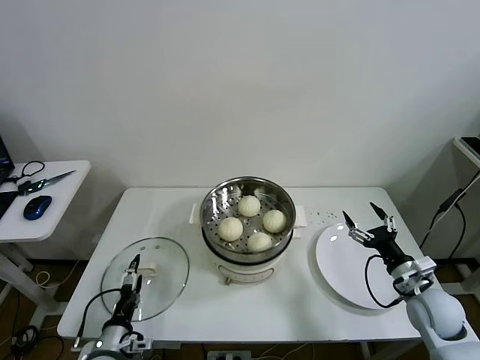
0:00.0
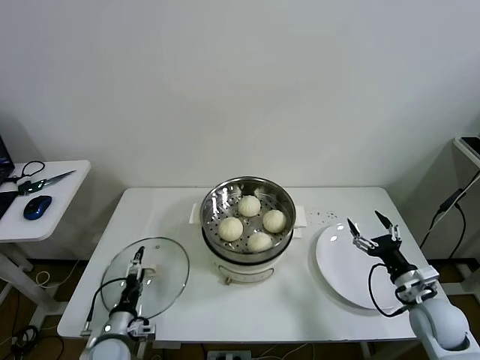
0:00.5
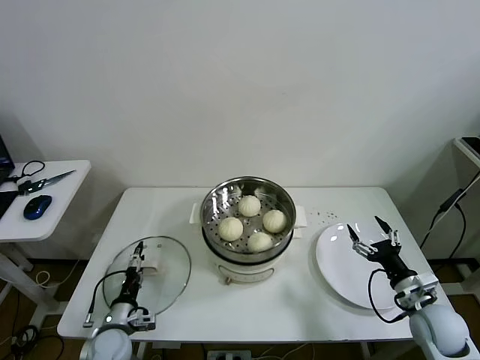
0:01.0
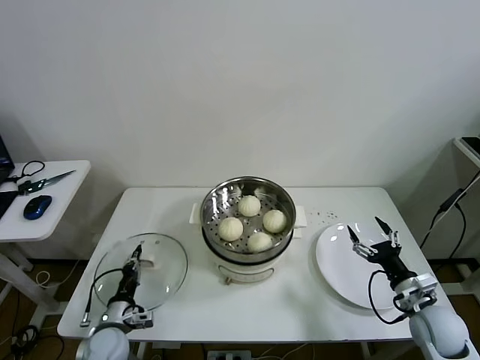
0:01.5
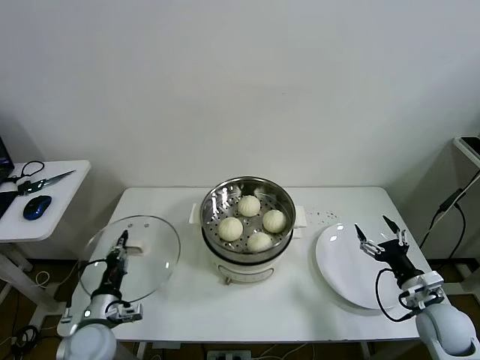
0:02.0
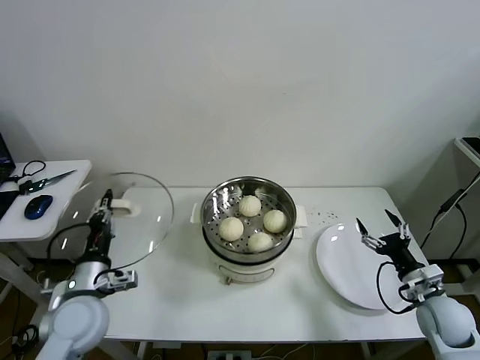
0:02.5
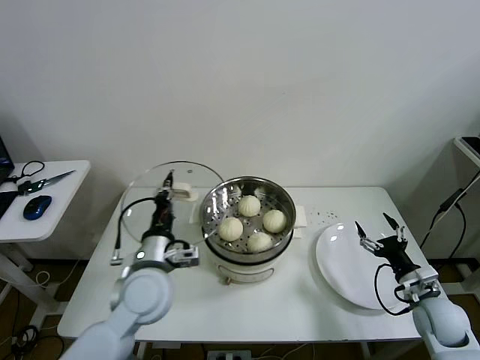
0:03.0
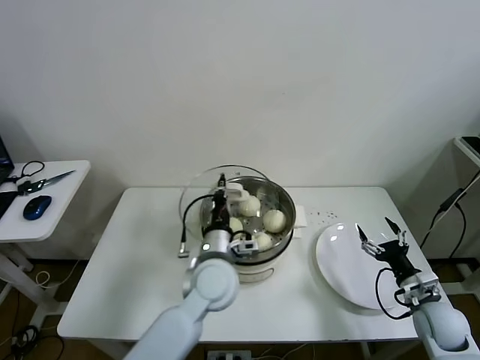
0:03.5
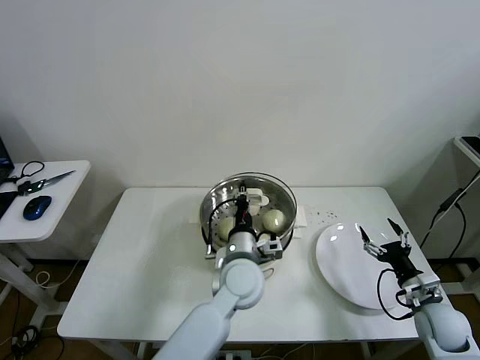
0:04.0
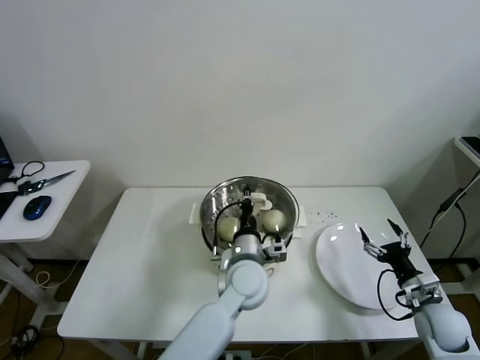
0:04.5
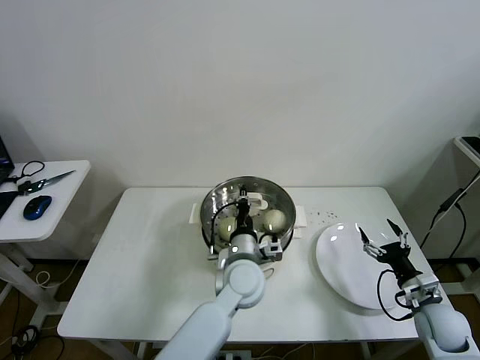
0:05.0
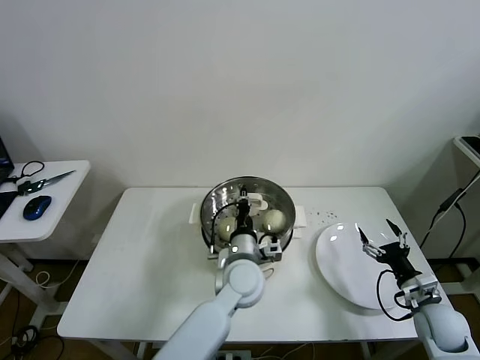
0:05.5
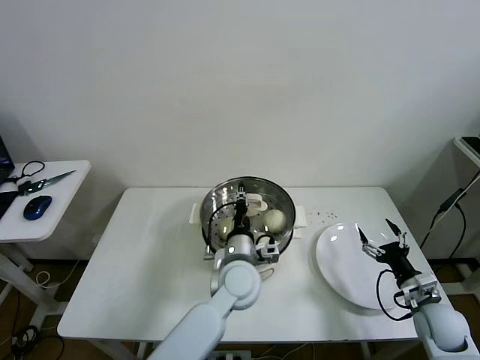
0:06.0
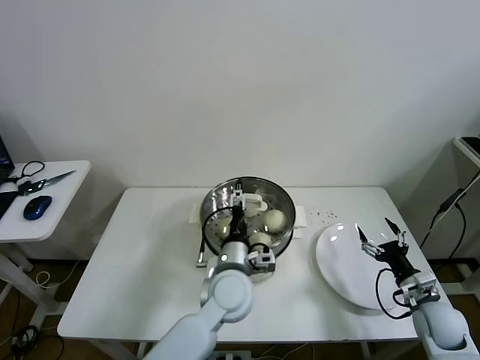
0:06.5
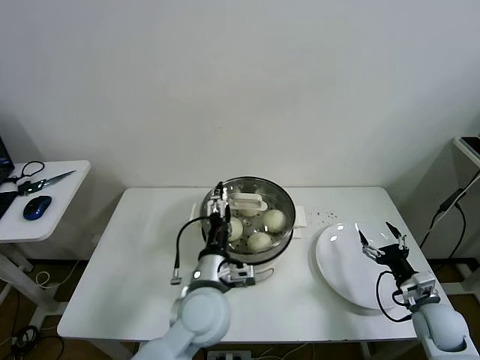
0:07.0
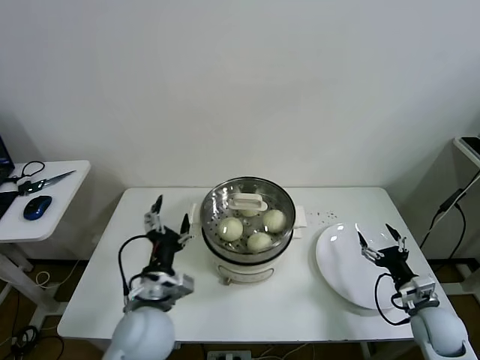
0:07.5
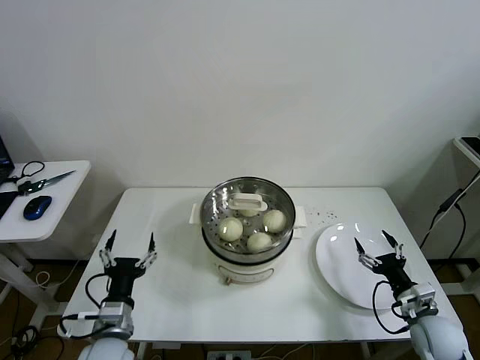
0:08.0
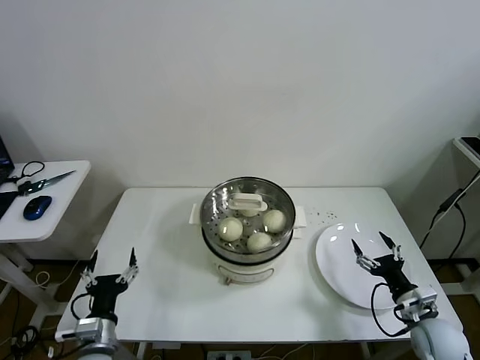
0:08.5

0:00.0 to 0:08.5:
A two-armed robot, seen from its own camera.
Task of the whole recording: take steamed baozi put them in steamer then cover it.
Step, 0:02.0 to 0:06.0: Place the pot lid on the steamer with left gripper.
0:00.0 to 0:02.0: The left gripper moves forward, roughly 5 cm, and closes.
0:02.0 to 0:04.0: The left gripper shifts approximately 30 cm to the right.
0:04.0 to 0:06.5: The left gripper opens up.
0:06.5 to 0:08.5: The left gripper moves to the left and backward, roughly 30 cm.

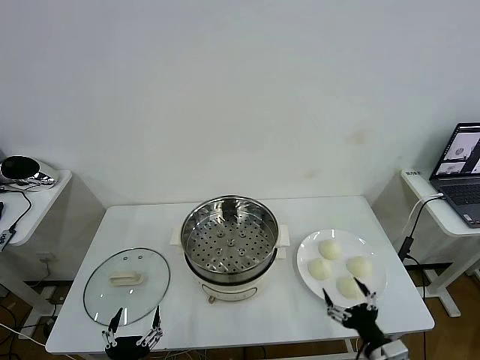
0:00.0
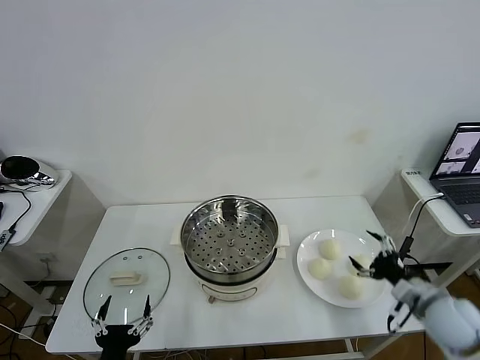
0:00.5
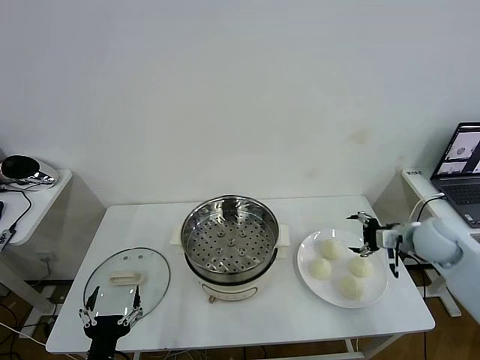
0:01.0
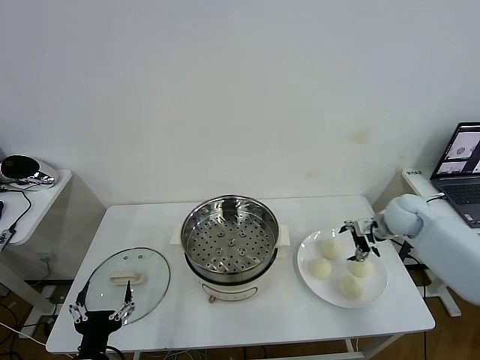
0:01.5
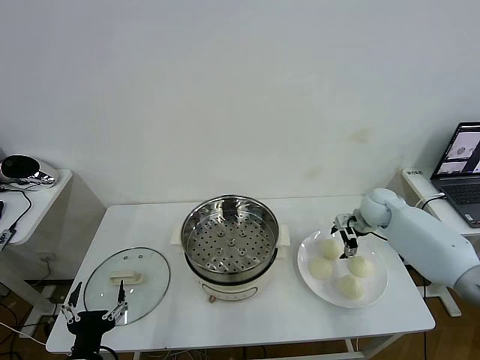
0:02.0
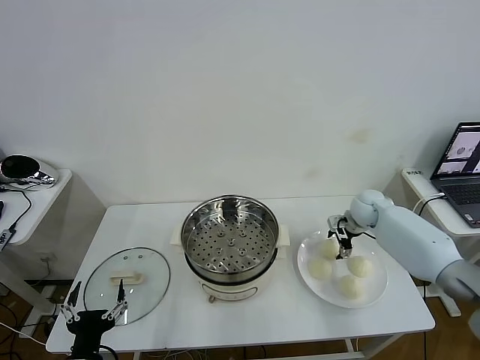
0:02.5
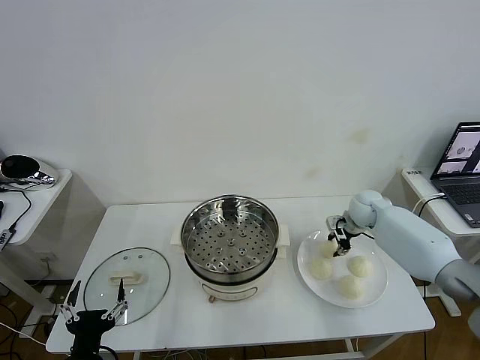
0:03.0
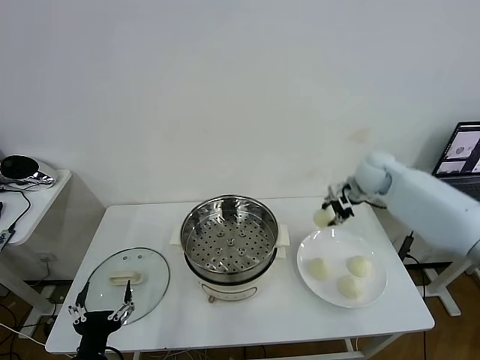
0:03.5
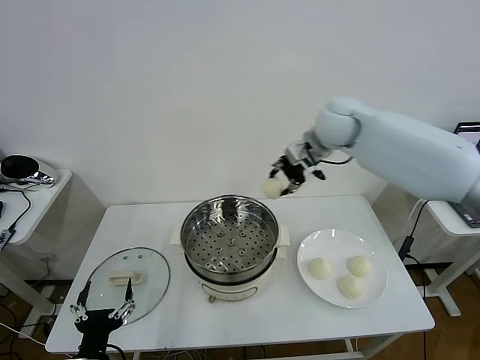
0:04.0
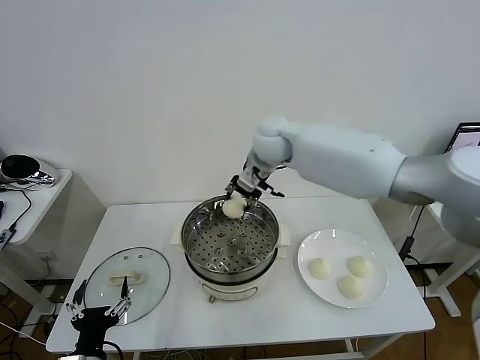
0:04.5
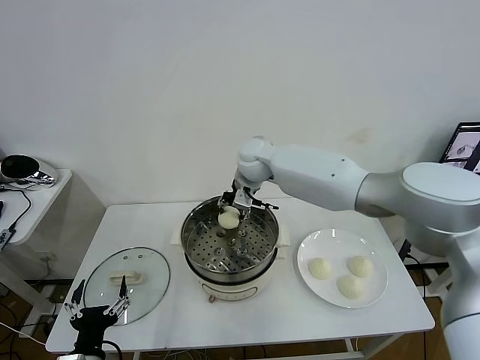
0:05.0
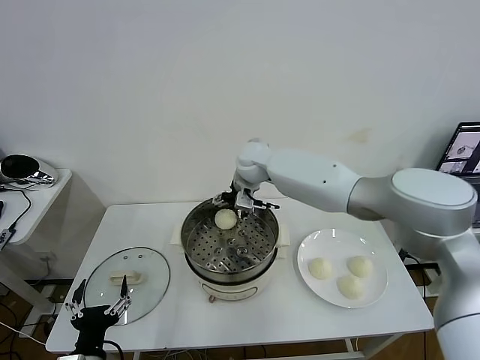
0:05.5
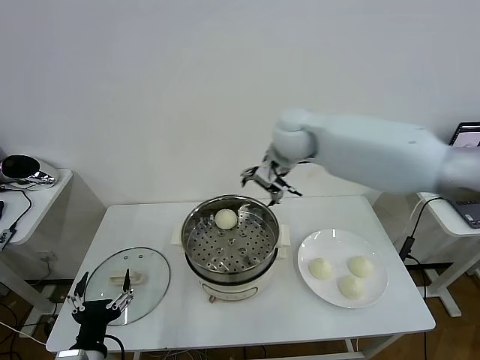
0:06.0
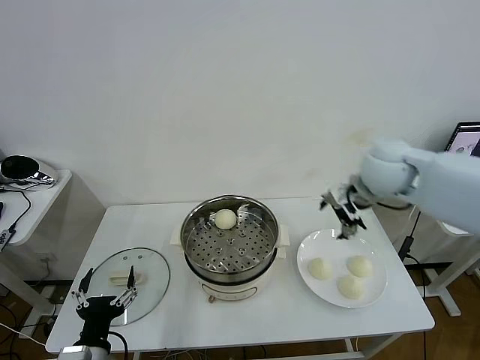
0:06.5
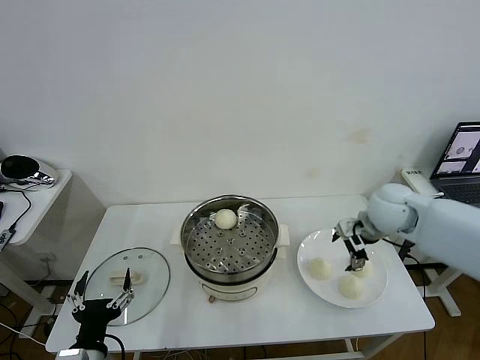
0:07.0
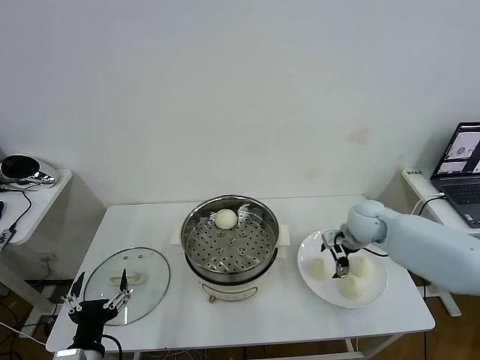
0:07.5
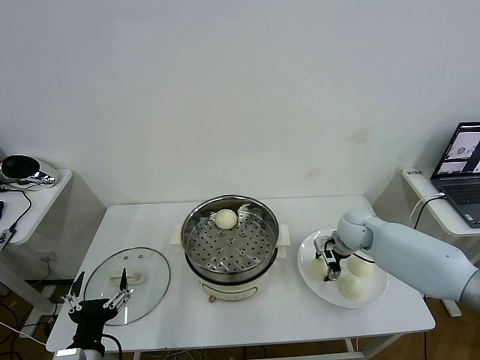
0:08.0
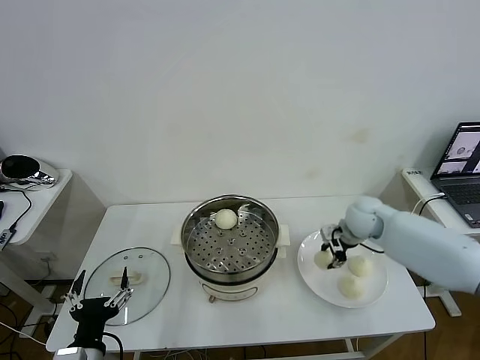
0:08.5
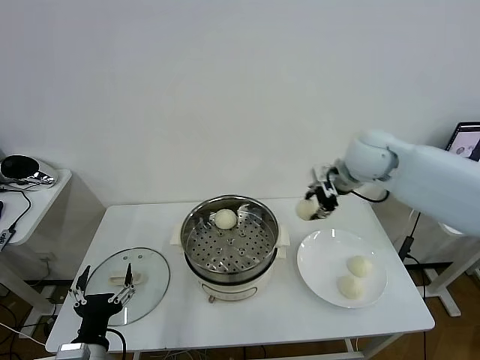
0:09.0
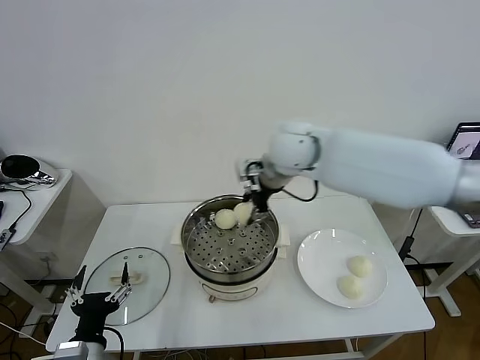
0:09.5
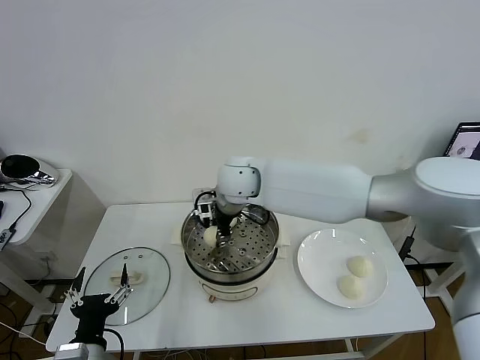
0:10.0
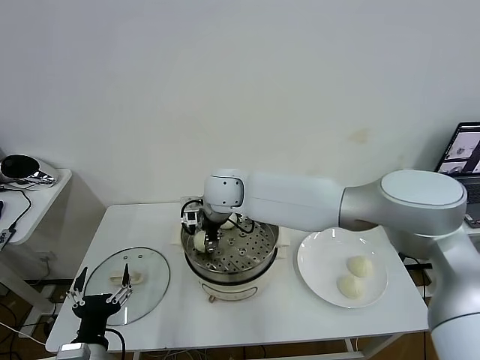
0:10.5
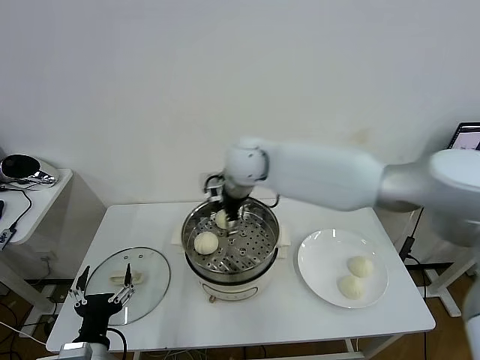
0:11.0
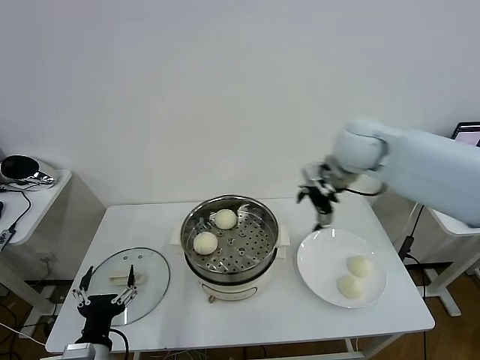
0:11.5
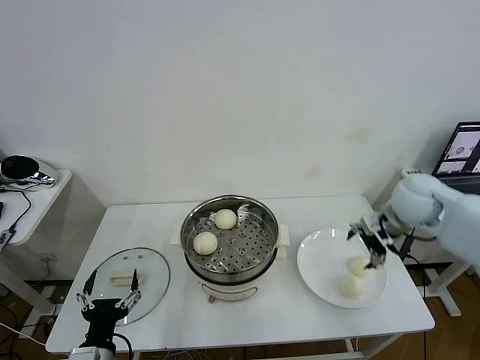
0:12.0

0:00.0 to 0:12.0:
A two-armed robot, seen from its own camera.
Task of the whole recording: take steamed baozi put them in steamer then cover it.
Step, 0:00.0 to 0:02.5: Grasp the baozi in the plate with right gripper.
Step, 0:03.0 to 0:05.0: Place the baozi on the steamer with right gripper.
Step, 0:05.5 to 0:08.0: Grasp the baozi in the plate with right gripper.
Step, 0:08.5 to 0:10.5: Place the baozi on the steamer with right gripper.
0:02.0 to 0:04.0: The right gripper moves upward and to the left, roughly 30 cm, and closes up.
0:04.0 to 0:06.0: The right gripper goes to the left and returns, about 10 cm each way, and opens its fingers.
0:06.0 to 0:08.0: The right gripper is displaced downward and to the right by roughly 30 cm, and closes.
0:08.0 to 0:10.0: The right gripper goes some 35 cm to the left and upward.
0:10.0 to 0:12.0: The right gripper is displaced to the right by some 40 cm, and opens its fingers.

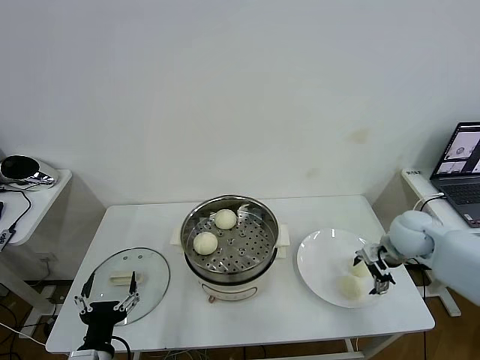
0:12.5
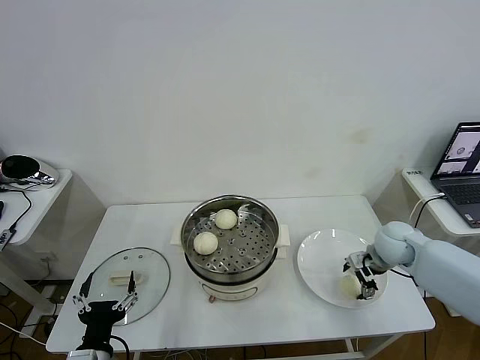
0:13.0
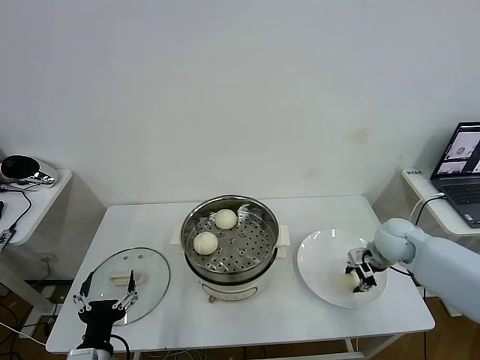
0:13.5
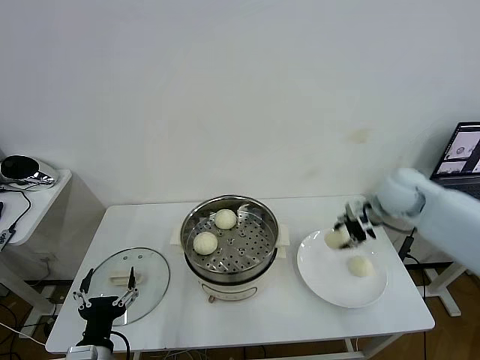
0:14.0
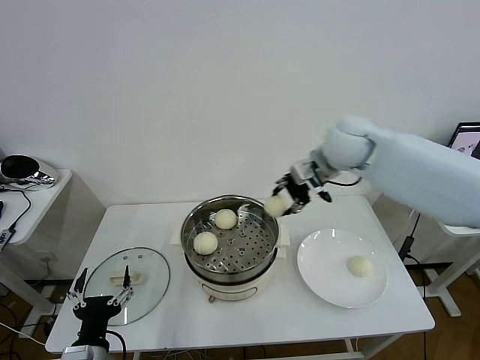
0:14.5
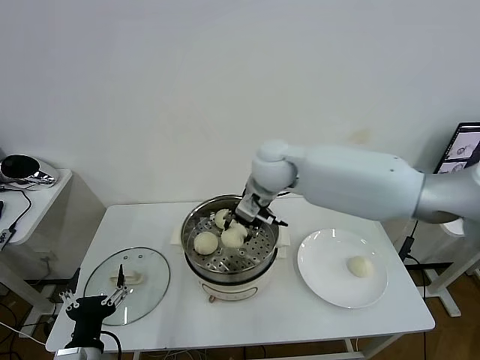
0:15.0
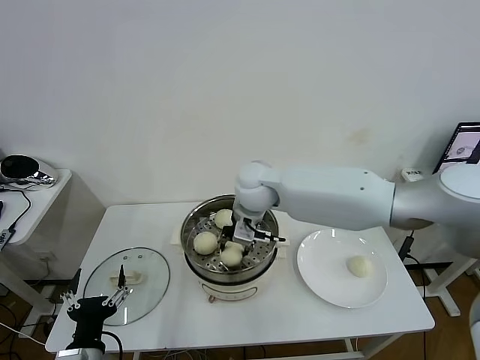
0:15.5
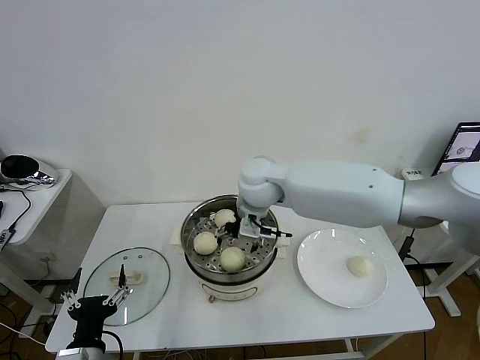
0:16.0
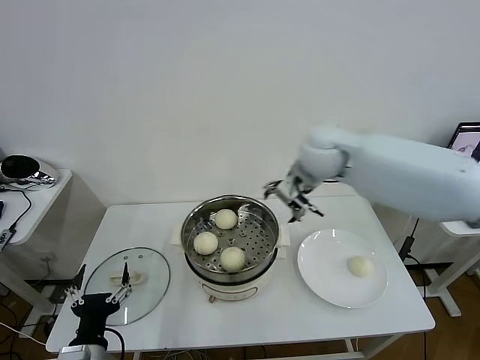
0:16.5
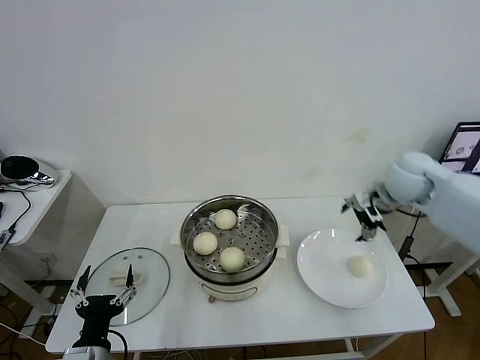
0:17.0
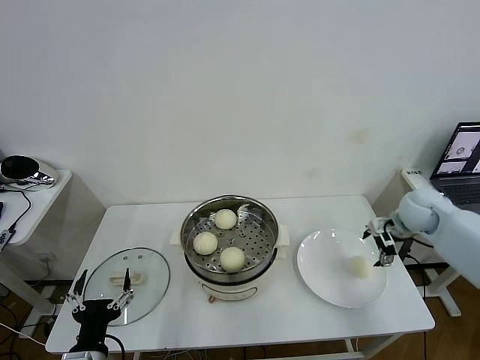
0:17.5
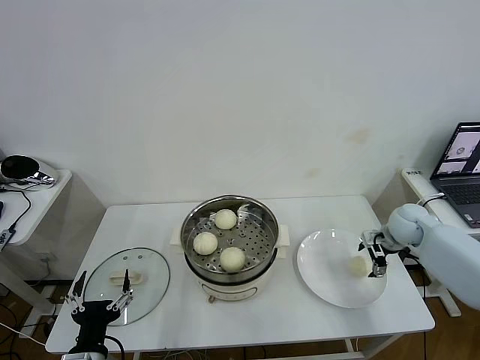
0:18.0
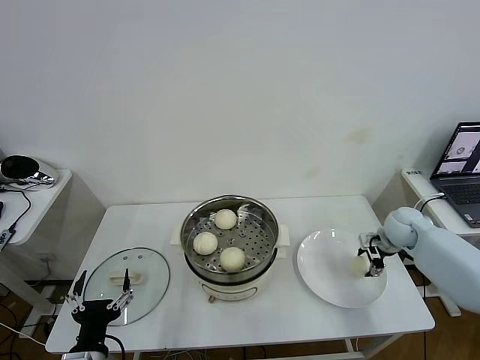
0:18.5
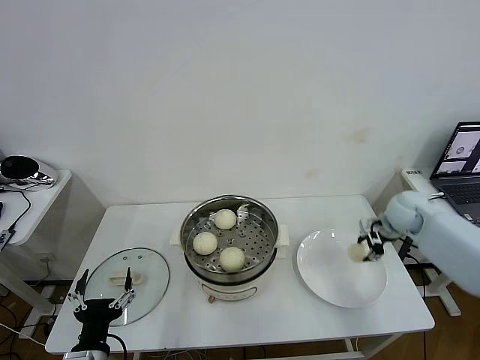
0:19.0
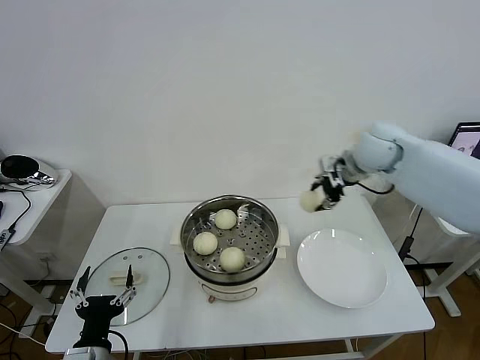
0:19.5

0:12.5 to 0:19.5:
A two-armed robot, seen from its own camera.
Task of the whole recording: take steamed baozi put them in steamer then cover it.
Step, 0:14.0 to 0:15.5: Place the baozi on the steamer with right gripper.
Step, 0:16.5 to 0:18.5: Grasp the baozi in the plate with right gripper.
0:12.5 to 0:14.5: The right gripper goes some 30 cm to the left and upward, and closes its fingers.
0:14.5 to 0:16.0: The right gripper shifts about 15 cm to the left and downward, and opens.
0:16.0 to 0:17.5: The right gripper travels to the right by about 35 cm.
0:17.5 to 0:19.5: The right gripper travels upward and to the left by about 25 cm, and closes up.
